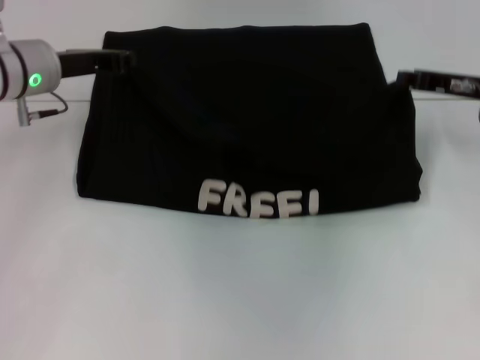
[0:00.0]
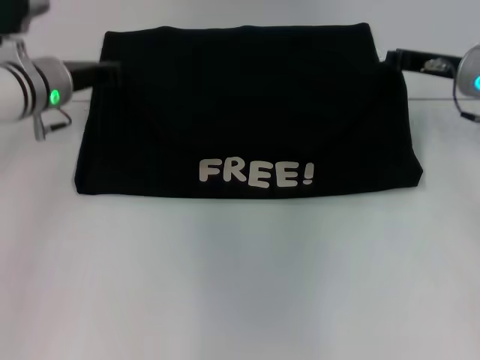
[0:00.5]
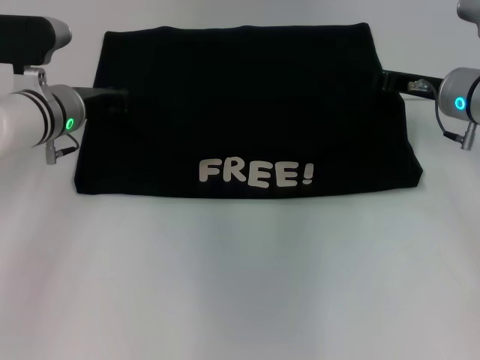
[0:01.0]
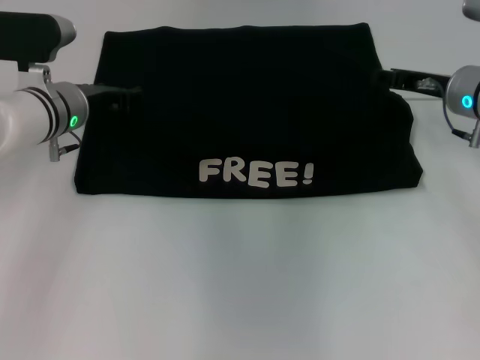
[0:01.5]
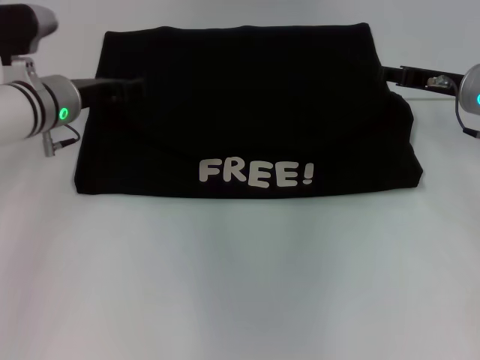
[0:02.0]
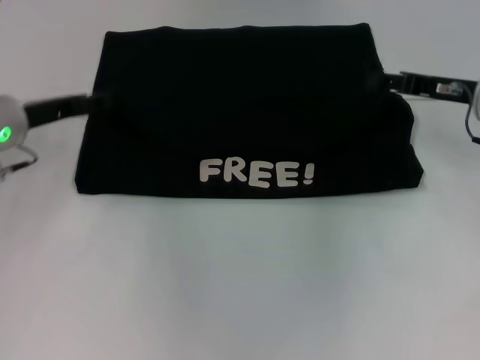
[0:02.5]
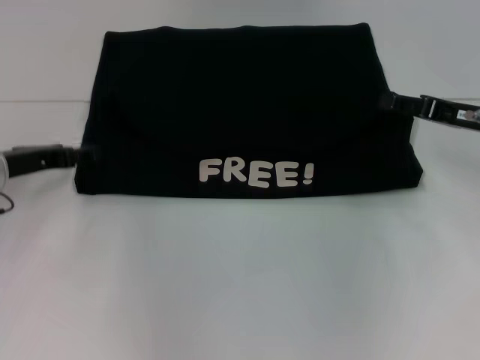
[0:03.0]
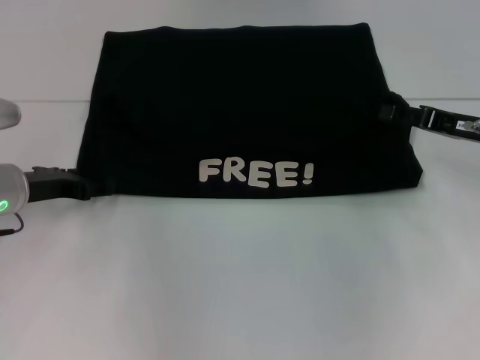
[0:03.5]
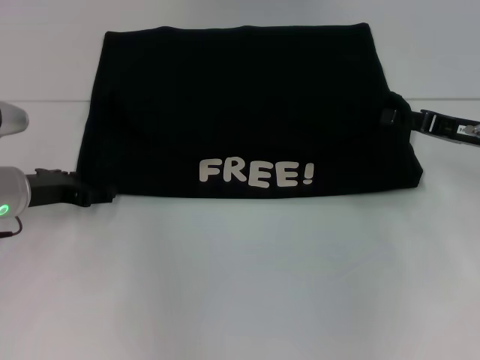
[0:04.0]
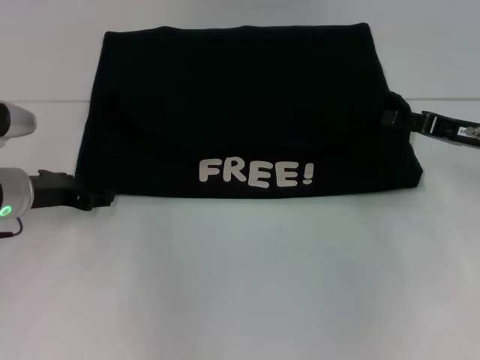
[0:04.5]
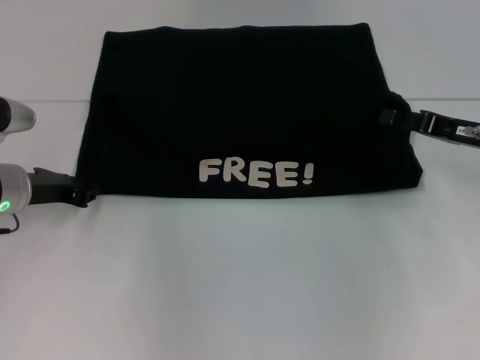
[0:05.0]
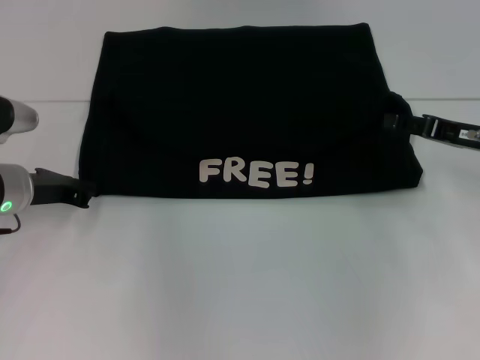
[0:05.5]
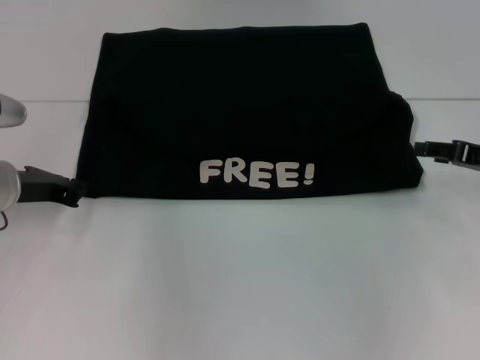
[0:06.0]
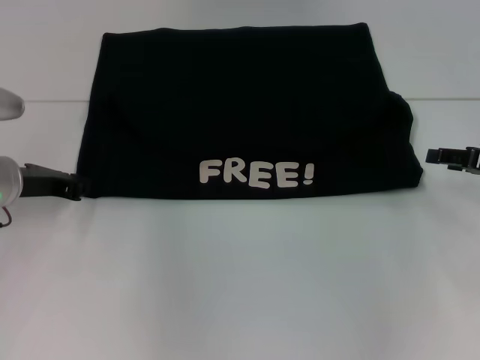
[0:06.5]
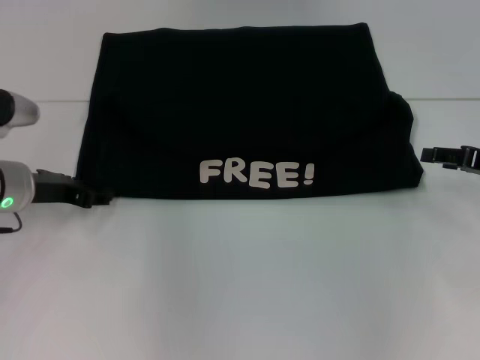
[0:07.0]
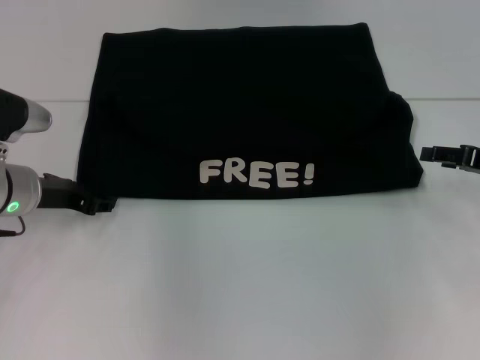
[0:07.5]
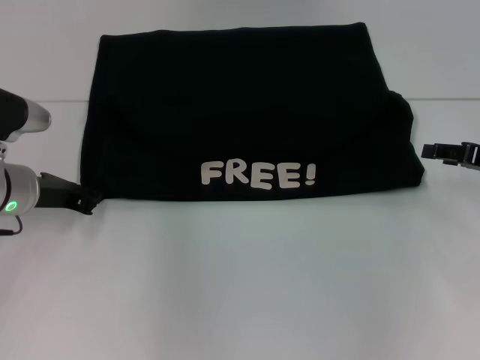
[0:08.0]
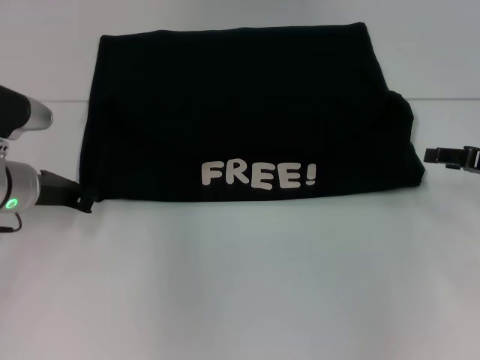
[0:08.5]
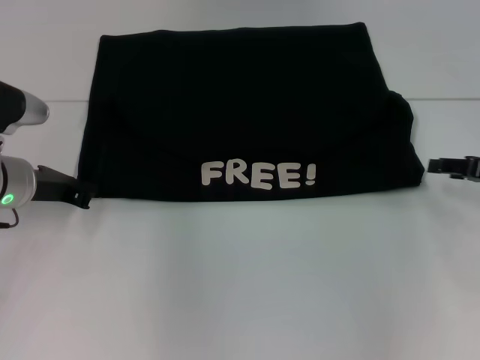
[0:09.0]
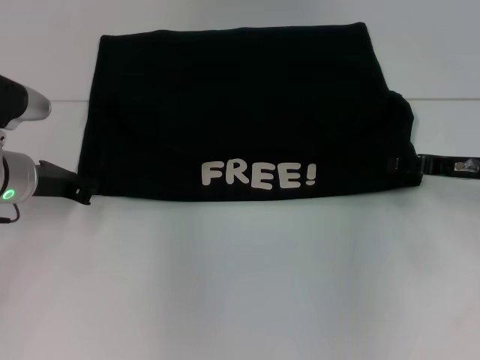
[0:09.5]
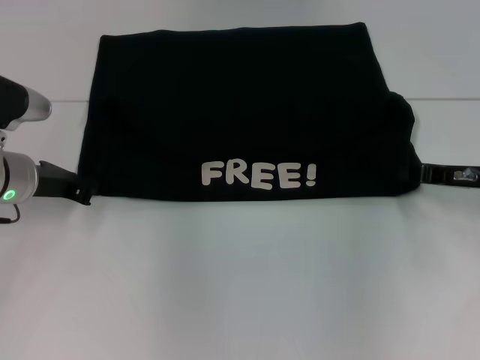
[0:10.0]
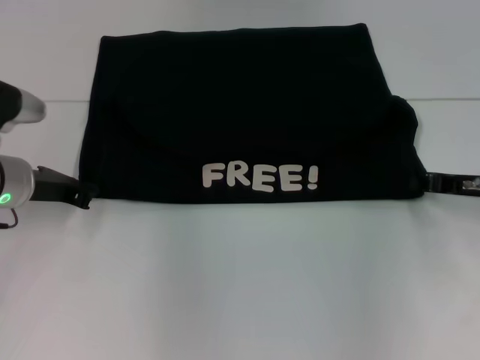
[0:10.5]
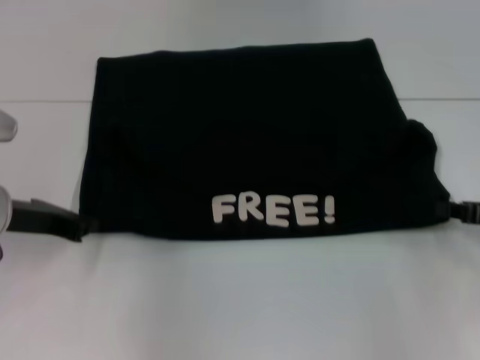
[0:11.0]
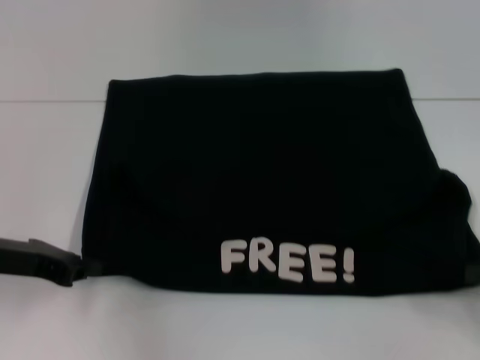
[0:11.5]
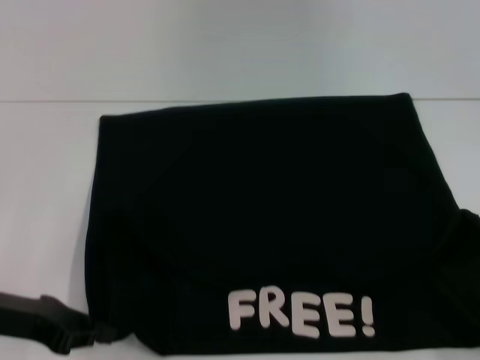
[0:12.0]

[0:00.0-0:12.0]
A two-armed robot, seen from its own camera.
0.0 to 2.0 s: The right gripper opens up; the left gripper opens.
2.0 to 4.0 s: The right gripper heads backward, covering some 5 cm. The left gripper shifts some 10 cm backward and to the left.
4.0 to 6.0 s: The left gripper closes its fingers.
6.0 to 8.0 s: The left gripper opens, then closes again.
8.0 to 10.0 s: The right gripper moves roughly 5 cm, and closes up.
10.0 to 12.0 s: The left gripper is displaced backward by approximately 15 cm, while the right gripper is displaced backward and to the right by about 20 cm.

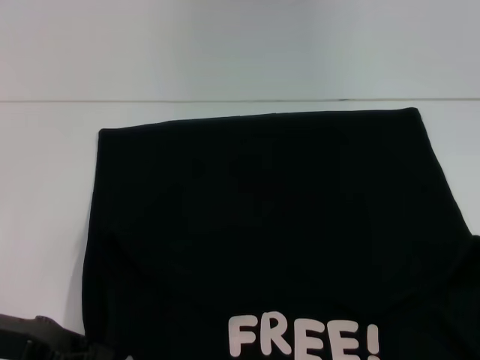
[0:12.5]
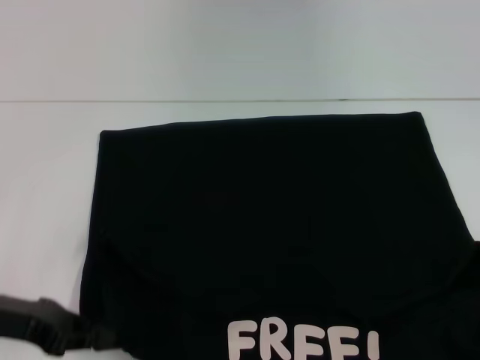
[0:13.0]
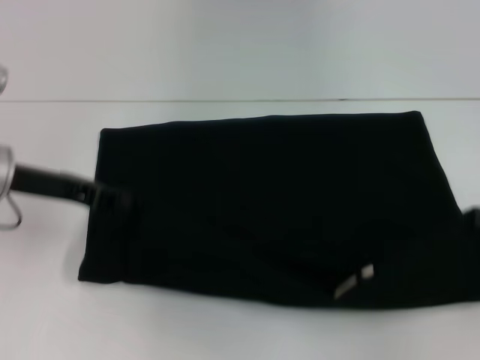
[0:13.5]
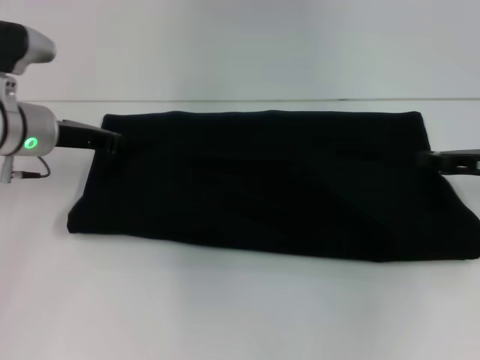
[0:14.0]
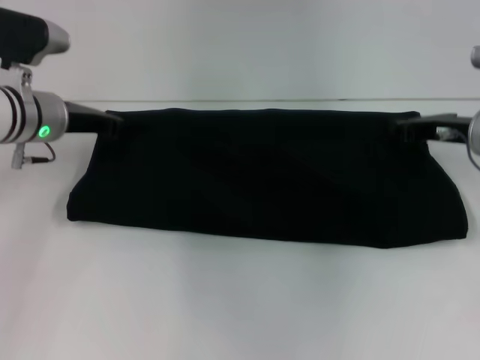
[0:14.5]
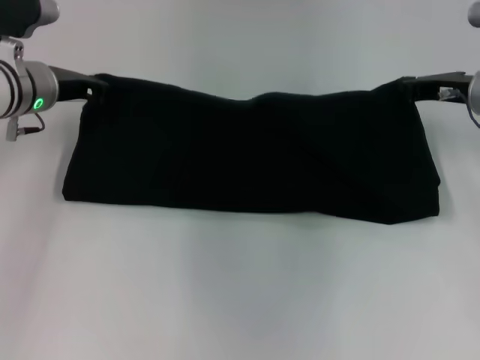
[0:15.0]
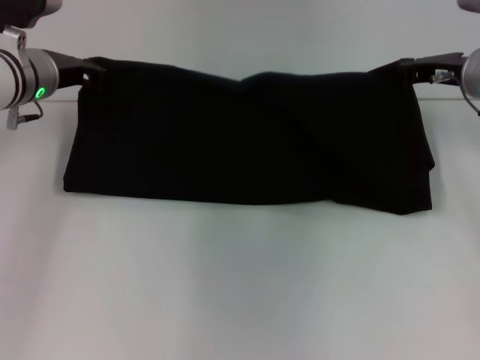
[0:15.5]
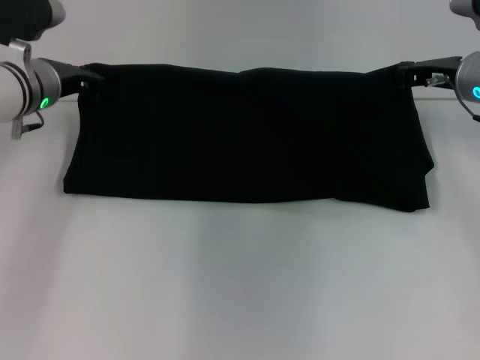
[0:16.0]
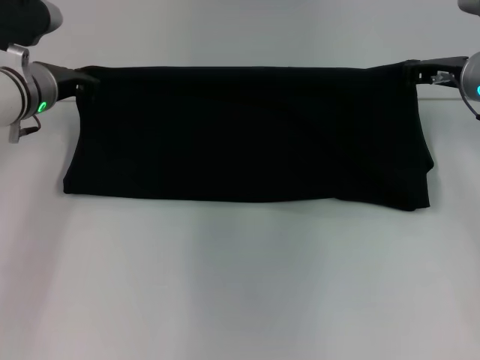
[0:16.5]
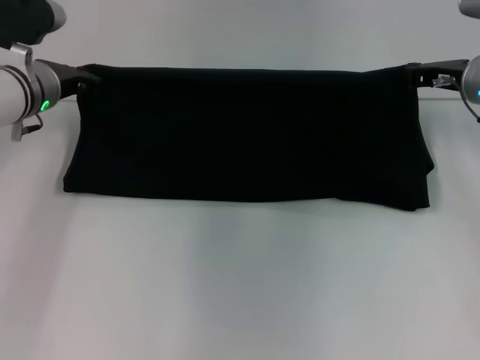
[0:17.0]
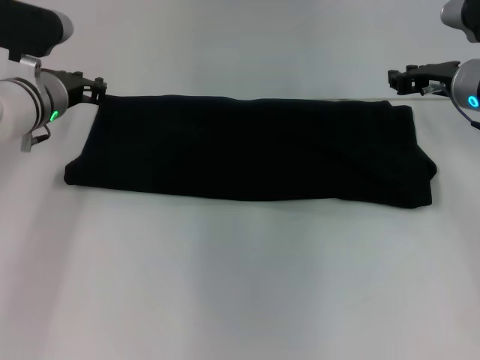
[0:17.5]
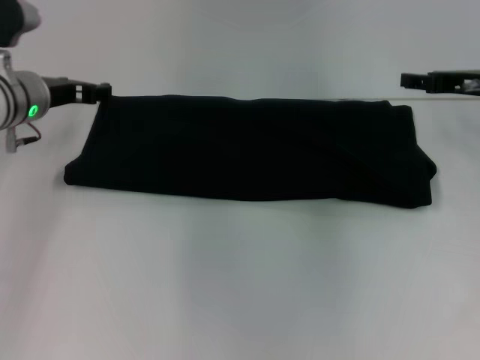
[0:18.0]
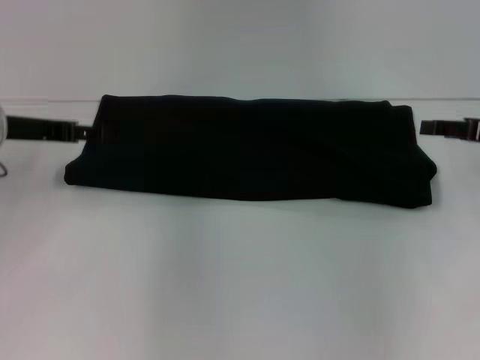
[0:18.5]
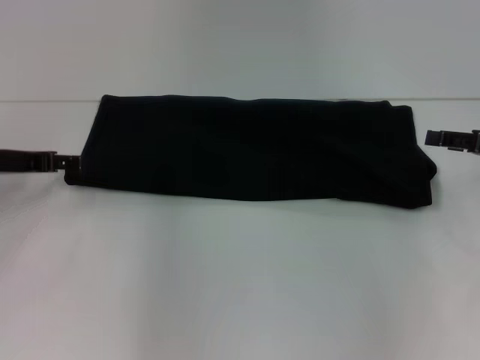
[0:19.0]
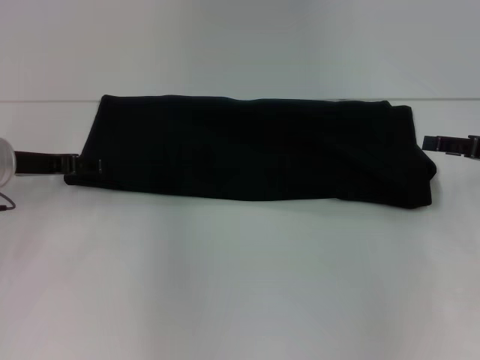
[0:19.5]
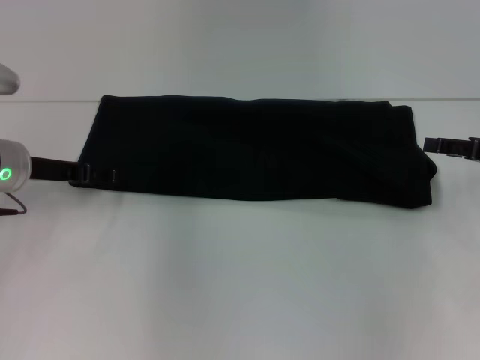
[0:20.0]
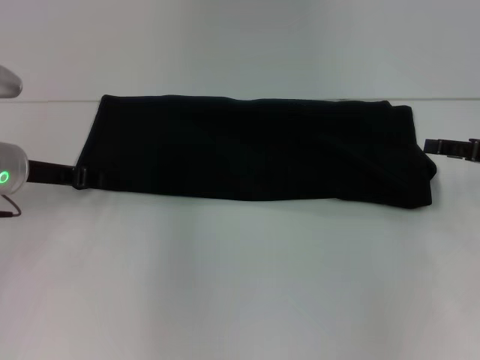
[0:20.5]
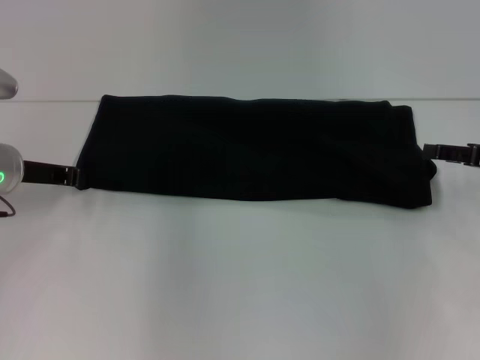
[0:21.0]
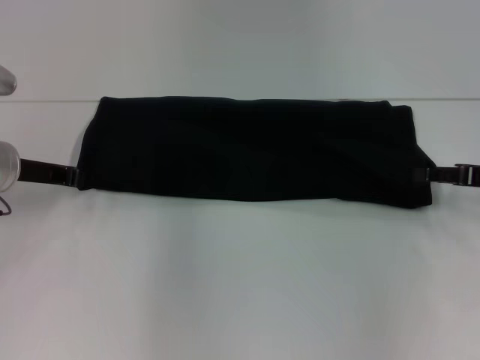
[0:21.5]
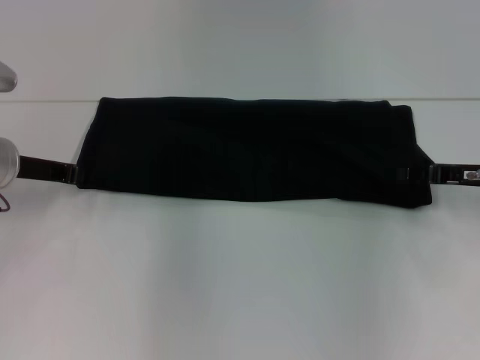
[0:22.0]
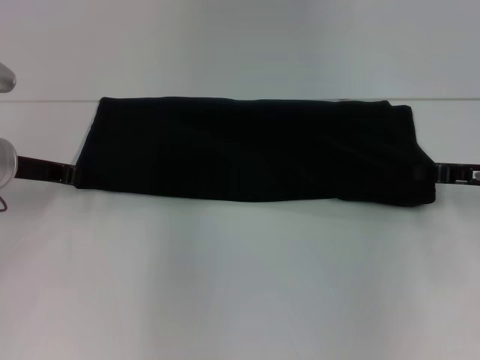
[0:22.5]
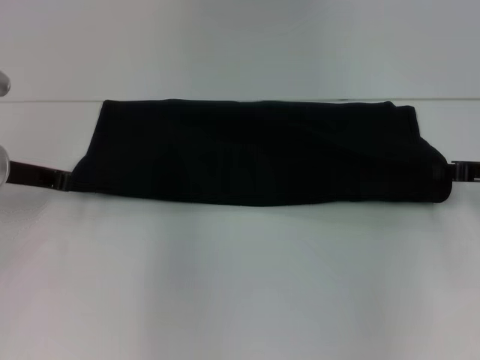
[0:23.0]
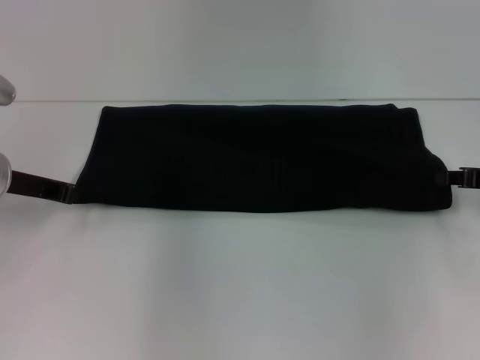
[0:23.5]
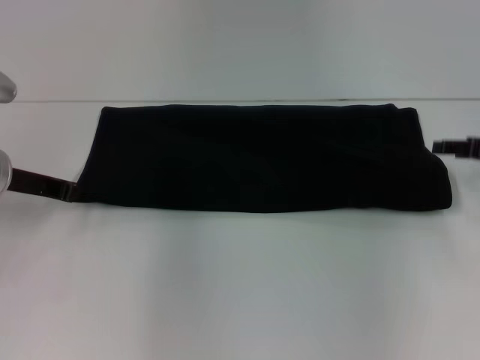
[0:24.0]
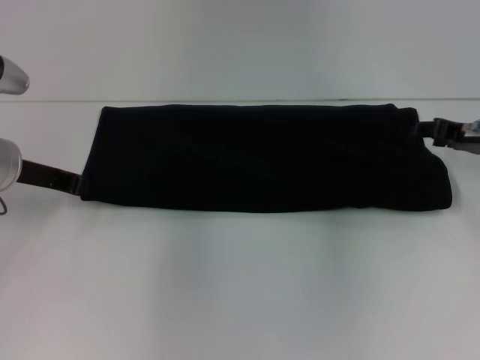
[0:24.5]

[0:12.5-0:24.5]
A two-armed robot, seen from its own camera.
Step, 13.0 to 17.0 s: Fold the clothes with your right hand.
12.5 to 14.5 s: The right gripper is displaced forward and to the left by about 30 cm. Meanwhile the left gripper shifts some 20 cm forward.
14.5 to 16.5 s: The right gripper changes place by approximately 5 cm.
16.5 to 18.5 s: The right gripper moves to the right and backward, some 10 cm, and opens. The left gripper moves backward, about 5 cm, and opens.
18.5 to 20.5 s: There are only small adjustments of the grippers.
20.5 to 22.5 s: The left gripper closes up, while the right gripper closes its fingers.
22.5 to 24.5 s: The right gripper opens.

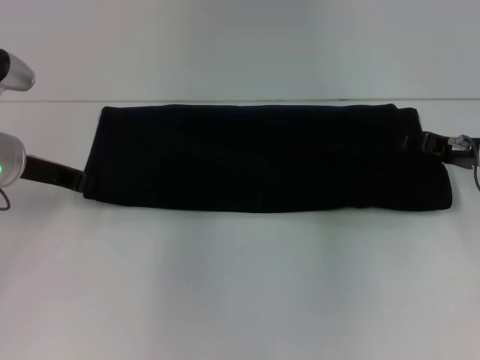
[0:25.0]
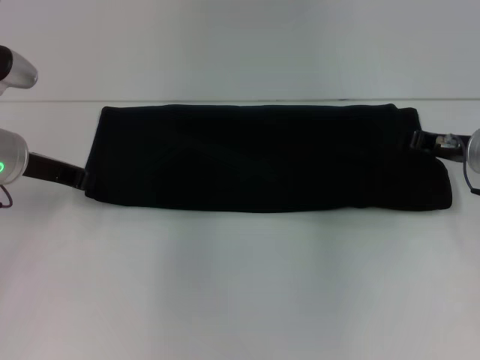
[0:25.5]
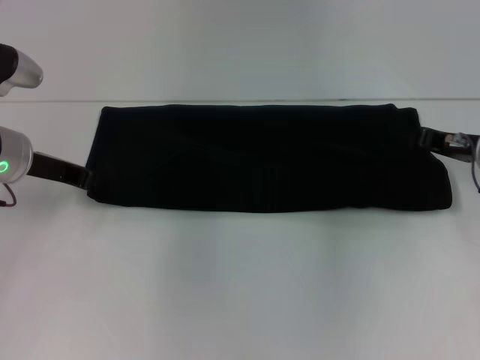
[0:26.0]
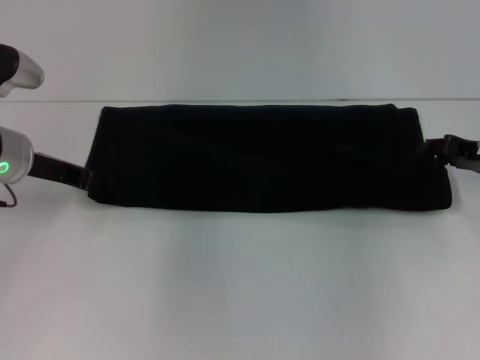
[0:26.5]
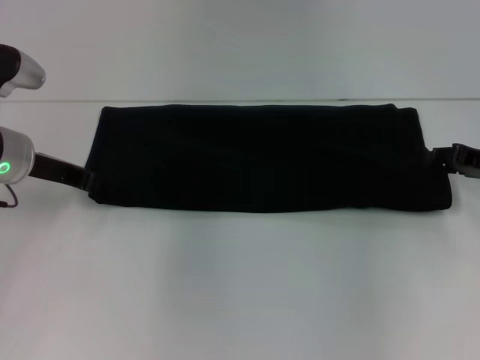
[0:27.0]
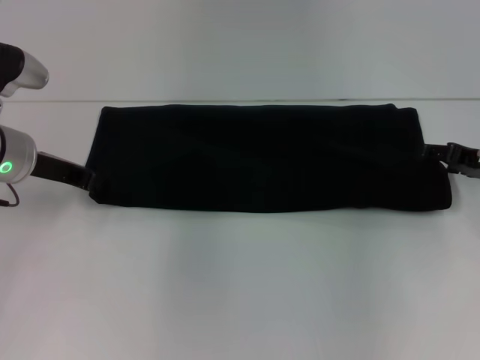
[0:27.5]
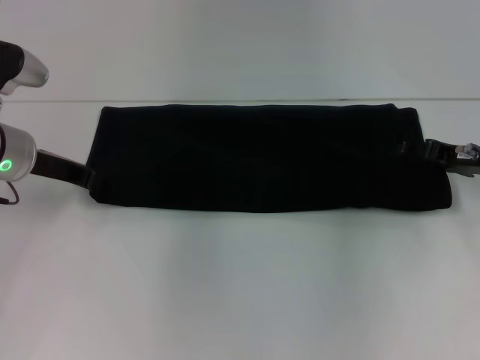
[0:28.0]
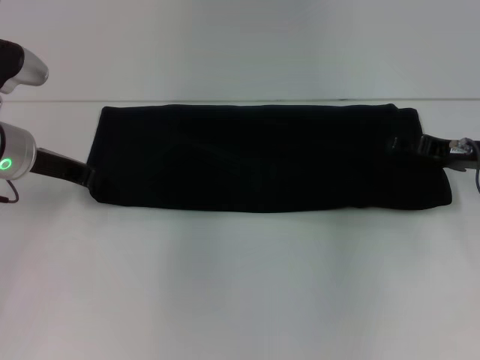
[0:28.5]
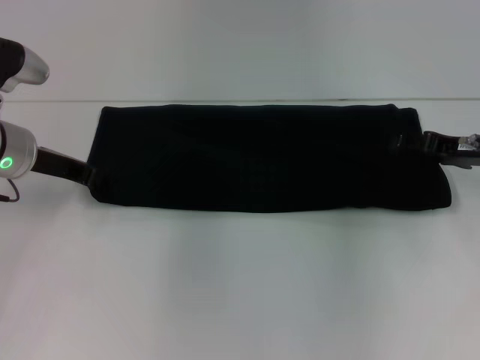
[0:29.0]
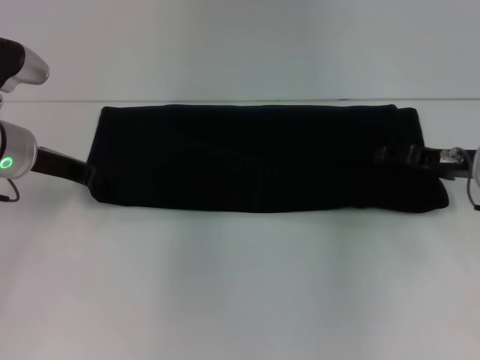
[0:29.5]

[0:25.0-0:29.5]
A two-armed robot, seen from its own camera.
25.0 to 27.0 s: The right gripper closes and opens again.
27.0 to 29.5 s: There are only small adjustments of the grippers.
